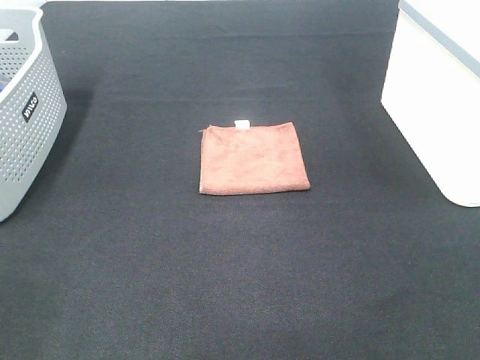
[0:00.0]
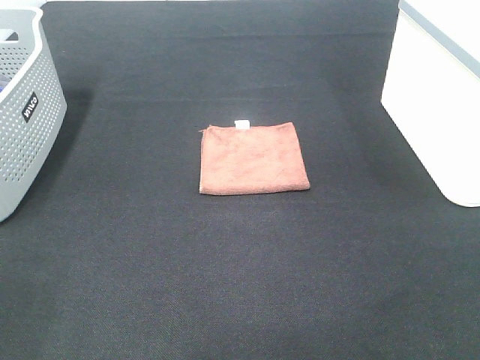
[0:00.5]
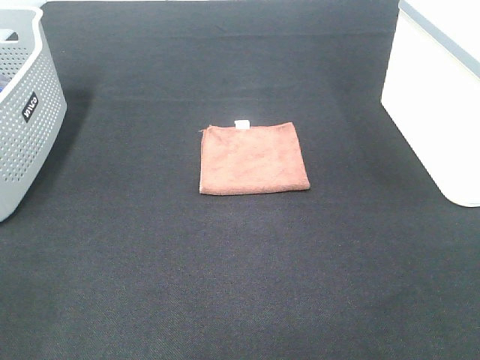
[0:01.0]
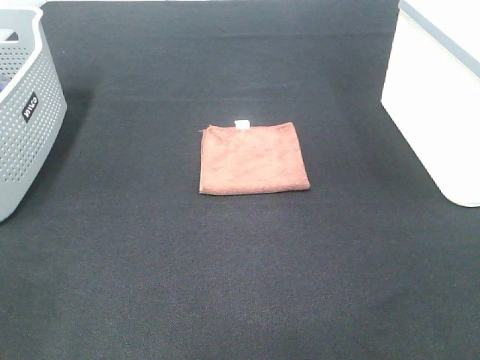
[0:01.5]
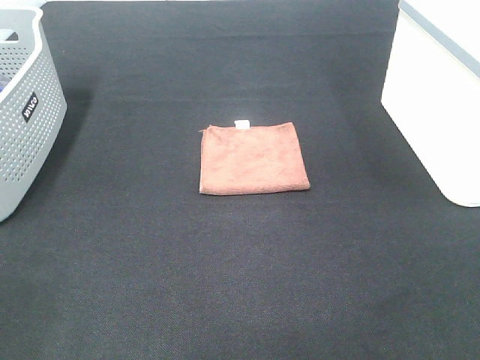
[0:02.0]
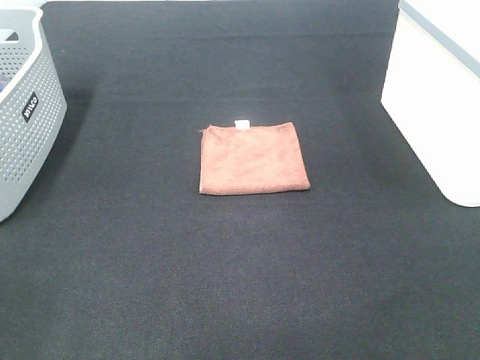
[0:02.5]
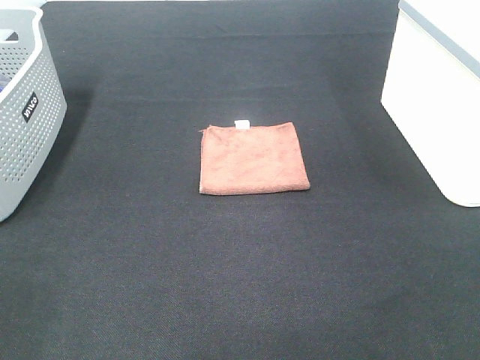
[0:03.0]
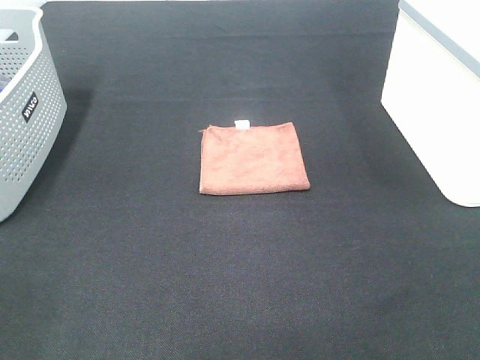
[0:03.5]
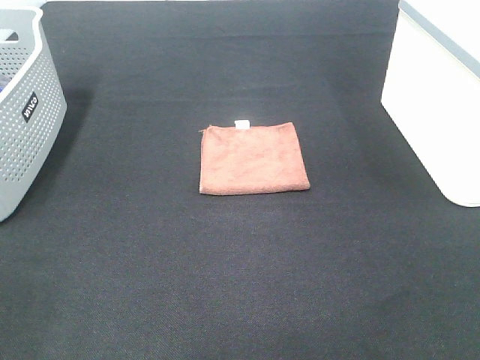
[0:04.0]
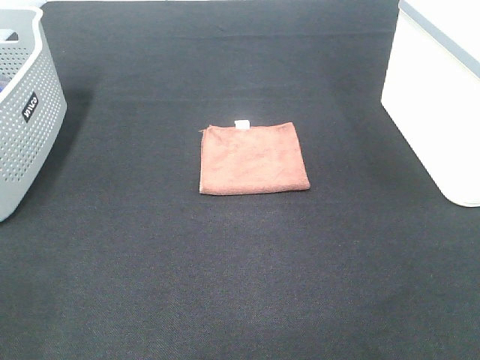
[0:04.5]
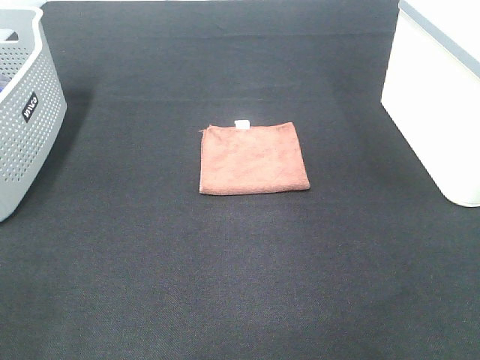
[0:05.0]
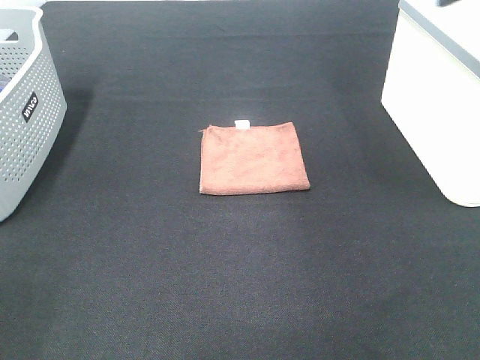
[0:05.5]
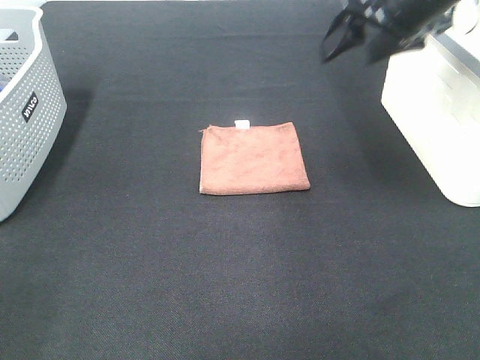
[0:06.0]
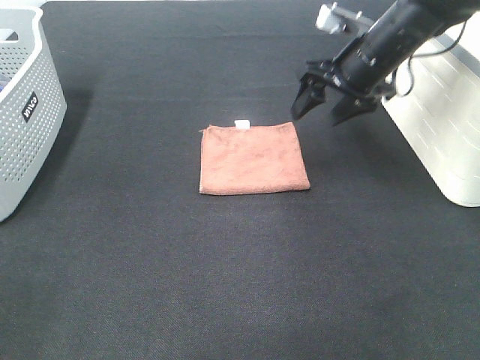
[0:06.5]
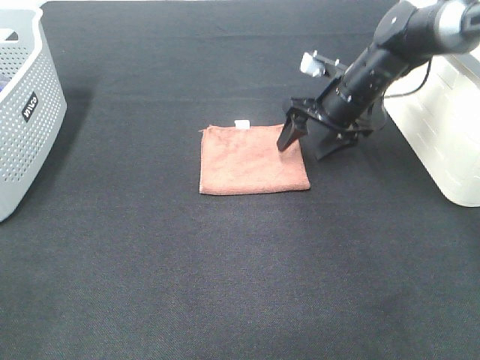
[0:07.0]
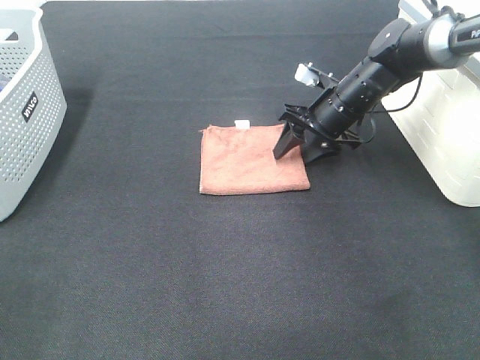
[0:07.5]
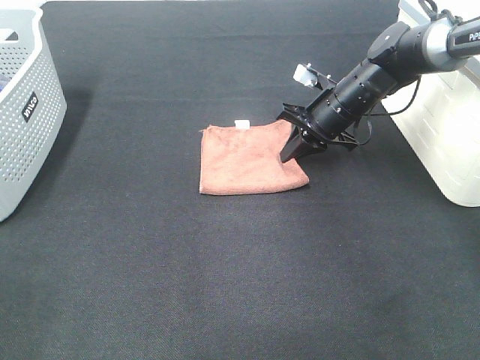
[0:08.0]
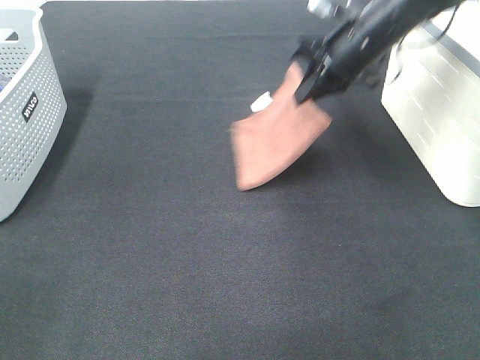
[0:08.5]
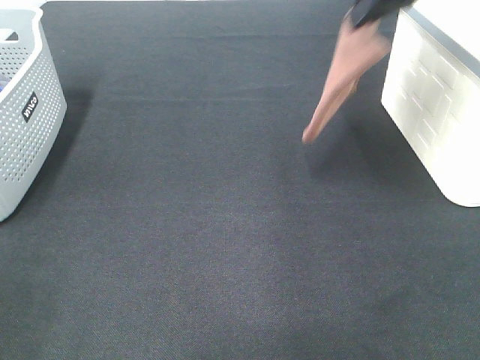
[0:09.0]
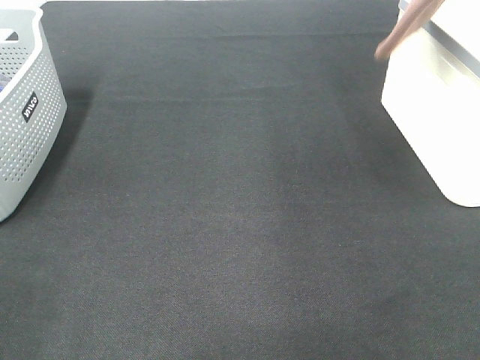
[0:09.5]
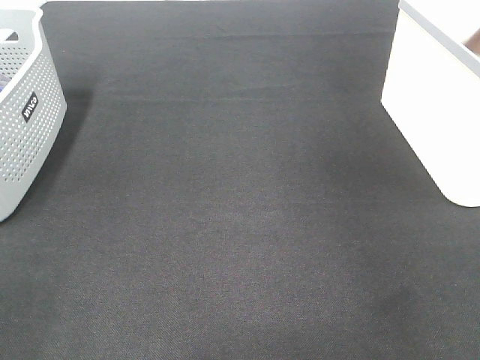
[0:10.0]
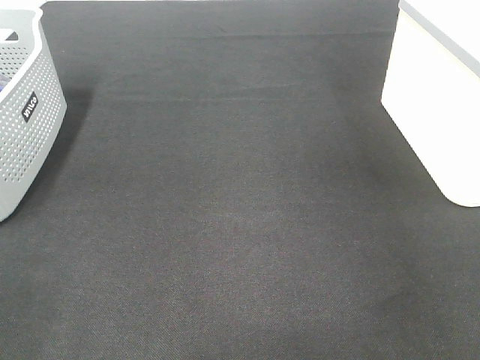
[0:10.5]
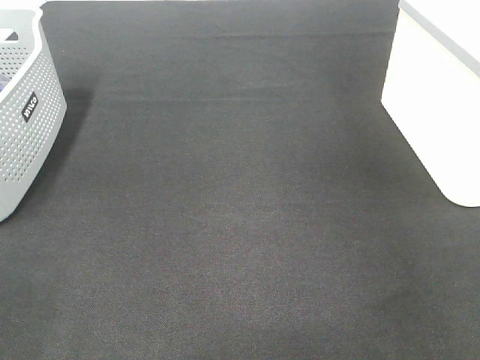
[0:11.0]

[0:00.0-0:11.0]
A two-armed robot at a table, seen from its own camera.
Step, 0:00.0 to 0:08.0: Right hand: grab the folded brown towel.
Step, 0:08.5 to 0:10.5: Right hand: place the brown towel in right basket.
0:00.0 to 0:03.5: Neither gripper changes place.
0:05.5 to 0:07.5: The right gripper is displaced downward, forward and to the left by approximately 30 cm.
0:07.5 to 0:09.0: The right gripper travels upward by about 25 cm, and closes up.
0:09.0 to 0:11.0: The right gripper travels to the right by about 20 cm, and opens its fingers.

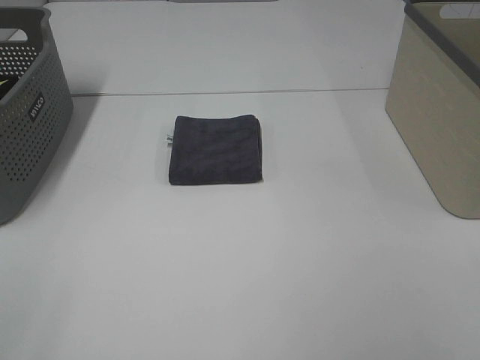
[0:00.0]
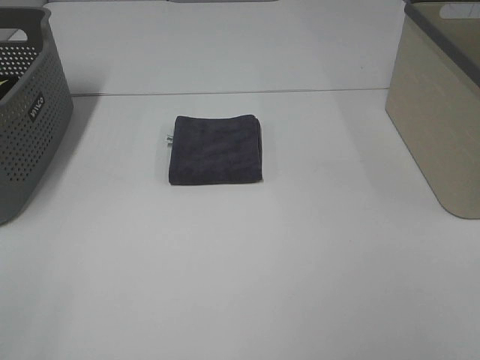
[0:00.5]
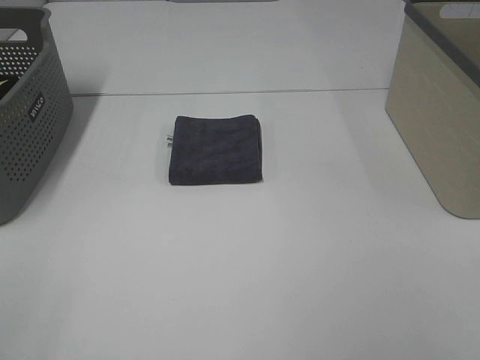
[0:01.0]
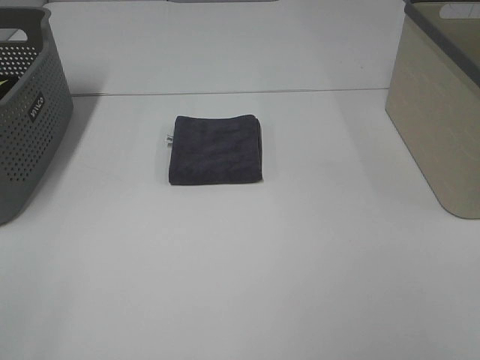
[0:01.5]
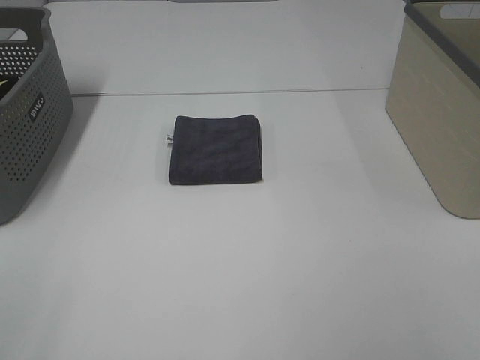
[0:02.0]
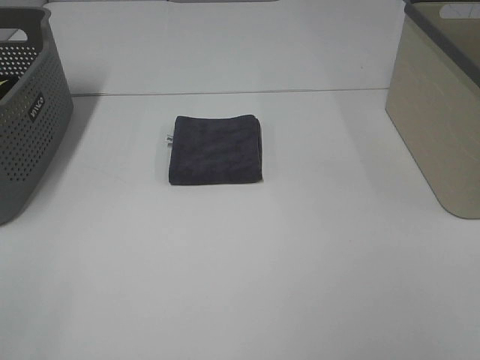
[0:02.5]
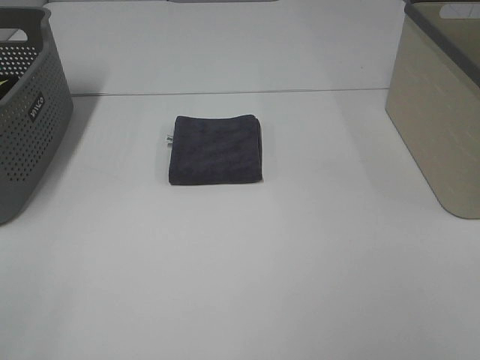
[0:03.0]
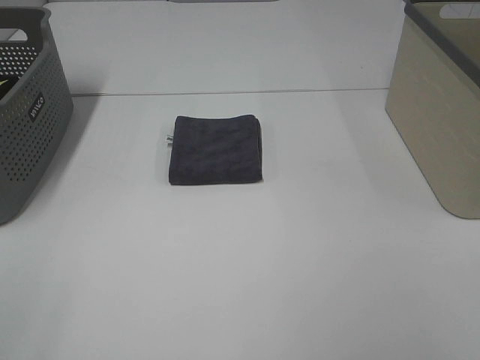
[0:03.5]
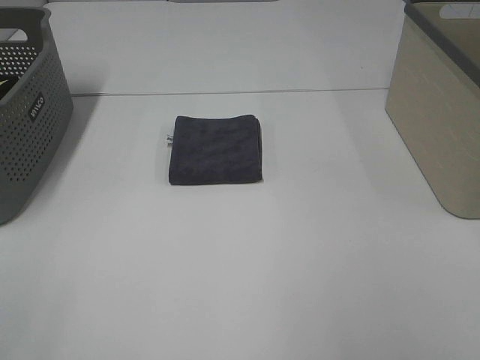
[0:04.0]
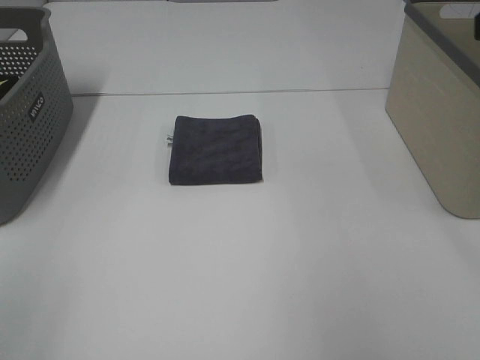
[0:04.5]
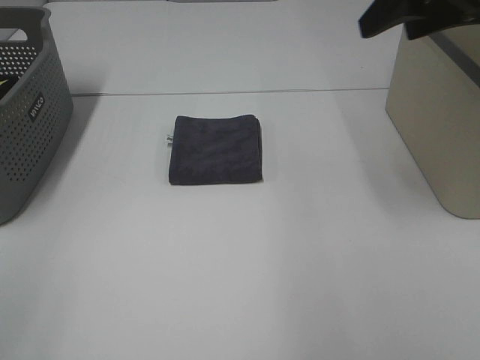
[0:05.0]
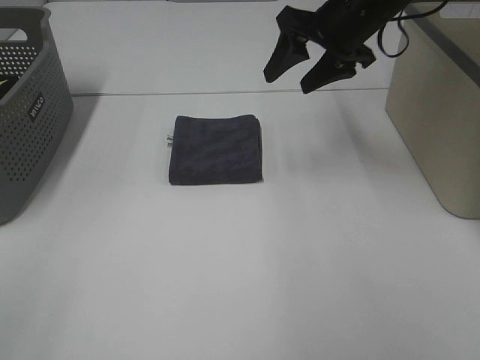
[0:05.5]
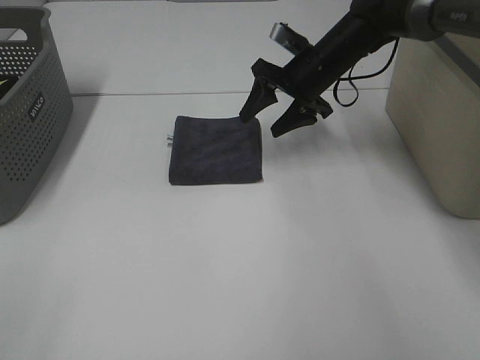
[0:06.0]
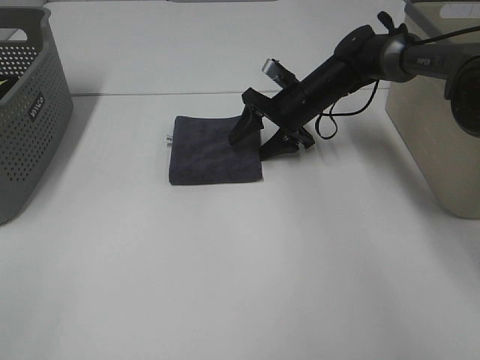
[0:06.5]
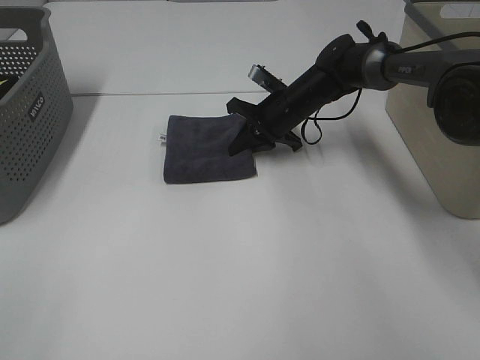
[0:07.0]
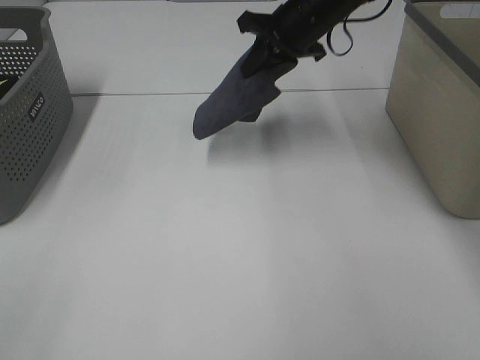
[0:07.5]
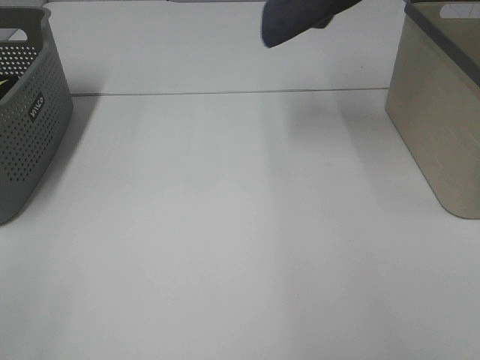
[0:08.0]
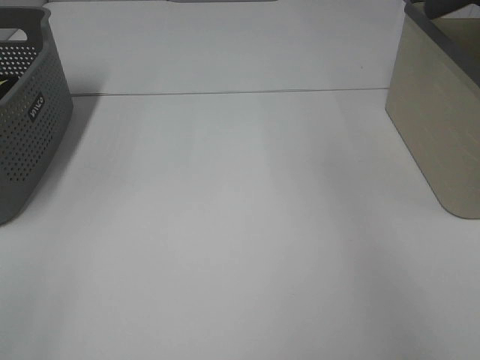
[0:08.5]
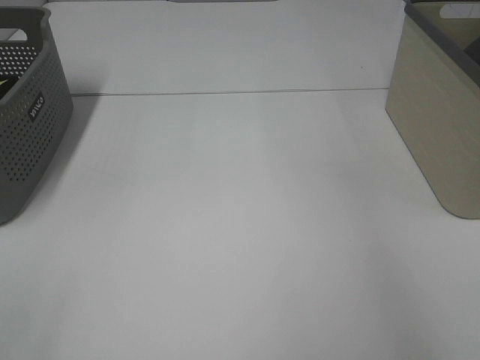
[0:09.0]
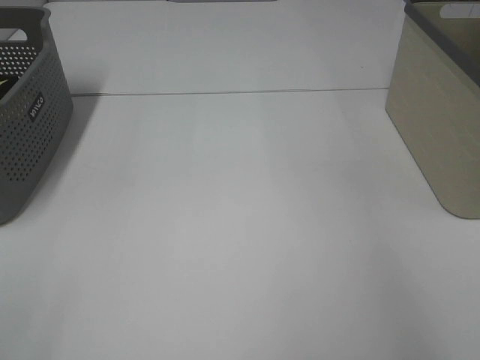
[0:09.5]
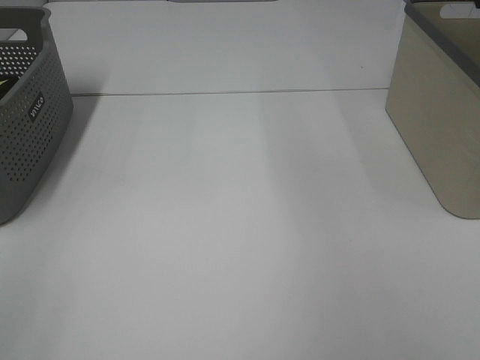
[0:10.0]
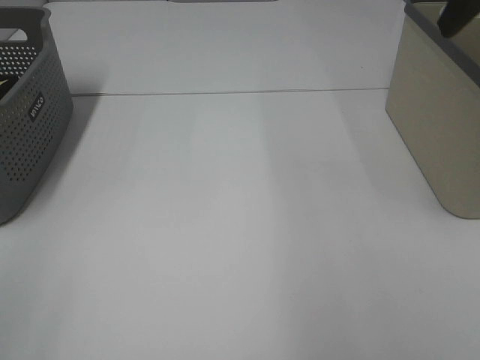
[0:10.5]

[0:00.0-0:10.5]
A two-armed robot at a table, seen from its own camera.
Step, 0:00.0 to 0:06.5: Right hand: grab the folded grey towel.
Step, 0:07.0 to 0:09.0: Right hand: place the grey towel in right basket.
0:00.0 to 0:02.0: Both grippers stay about where they are.
0:04.0 to 0:06.5: The right gripper heads forward, downward and to the left, covering about 50 cm.
0:06.5 to 0:08.5: The right gripper heads upward and to the right, covering roughly 40 cm, and closes.

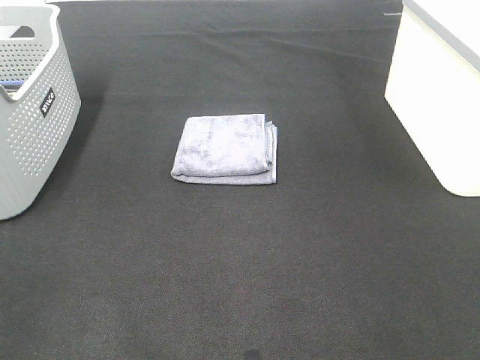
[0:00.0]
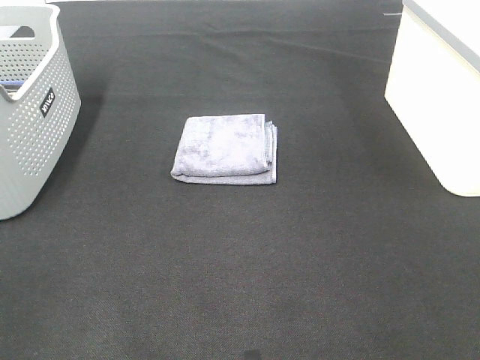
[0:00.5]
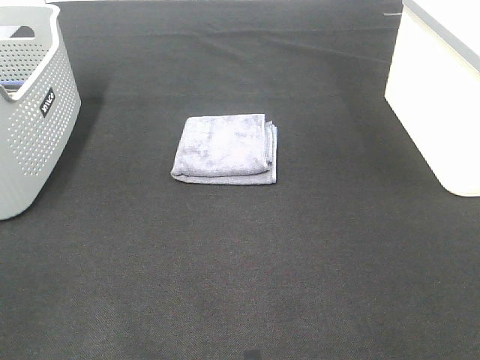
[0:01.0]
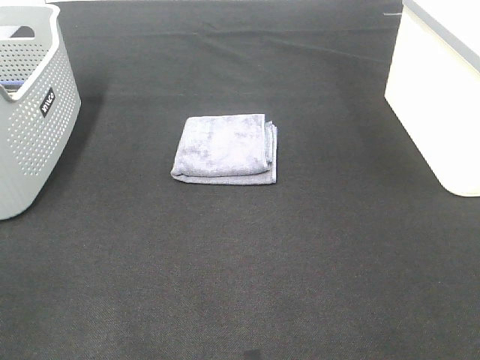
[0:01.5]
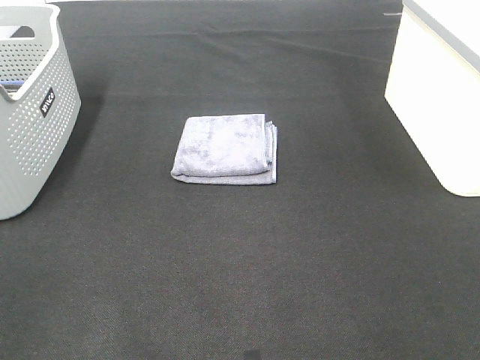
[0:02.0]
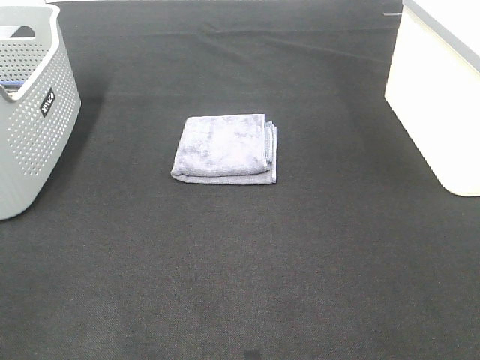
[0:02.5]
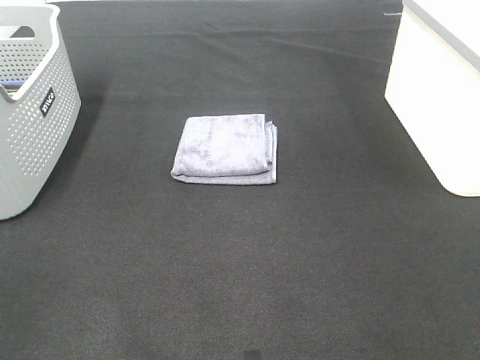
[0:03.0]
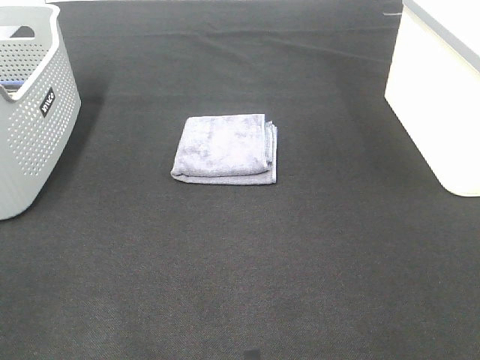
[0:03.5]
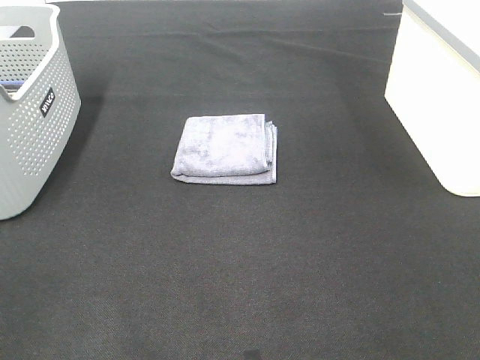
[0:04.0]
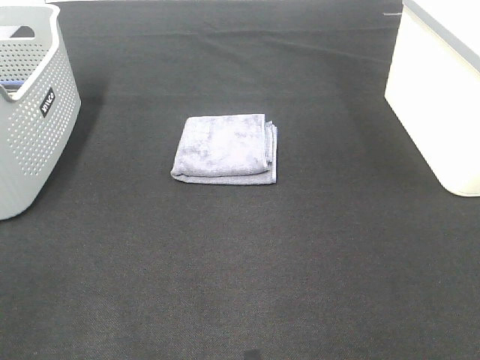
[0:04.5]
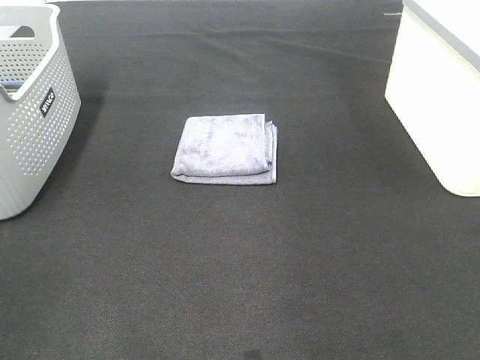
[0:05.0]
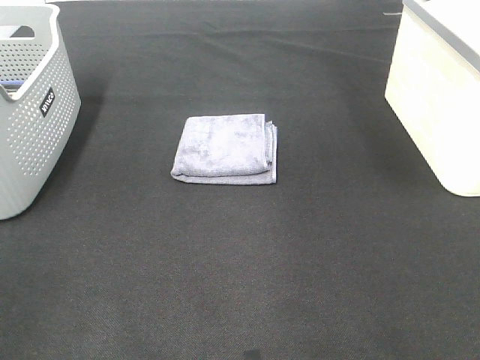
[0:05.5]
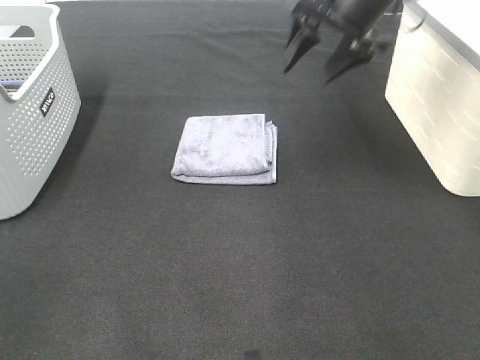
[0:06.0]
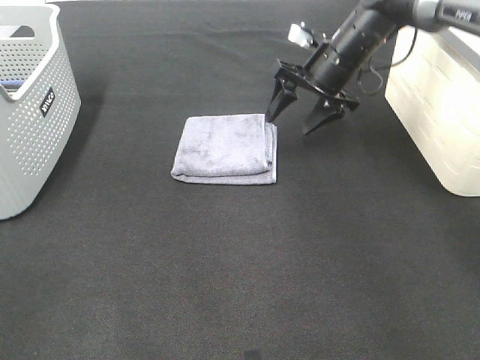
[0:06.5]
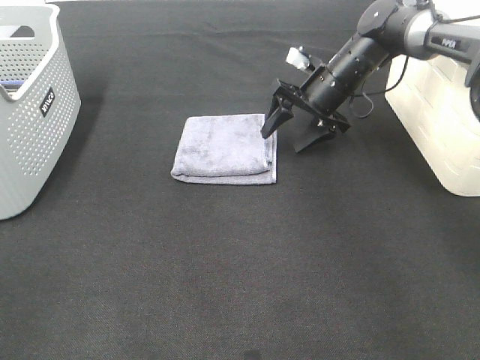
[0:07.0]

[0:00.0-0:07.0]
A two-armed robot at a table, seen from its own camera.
0:00.0 to 0:03.5: Both grippers stay about where they are.
0:05.0 to 0:07.0: The right gripper travels downward, forward and to the left by some 40 cm.
